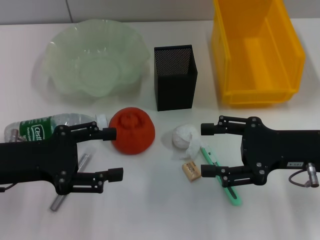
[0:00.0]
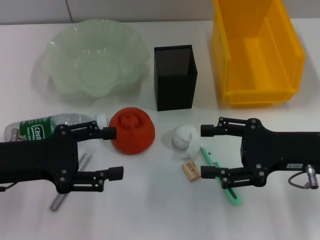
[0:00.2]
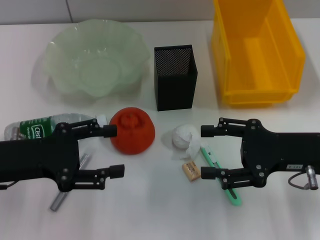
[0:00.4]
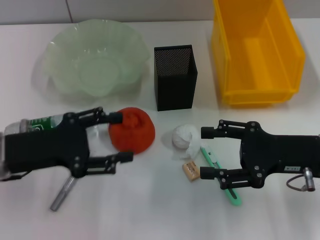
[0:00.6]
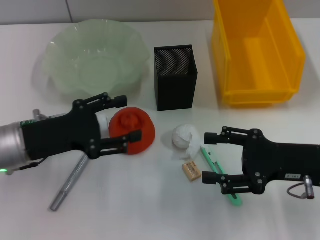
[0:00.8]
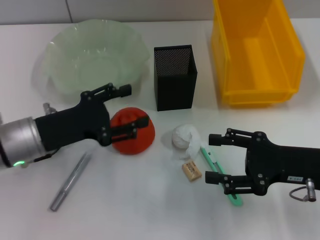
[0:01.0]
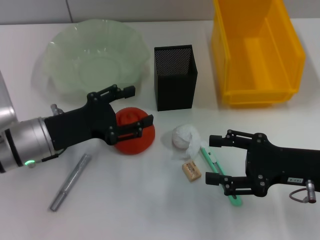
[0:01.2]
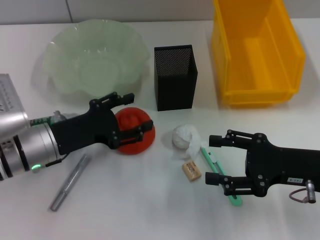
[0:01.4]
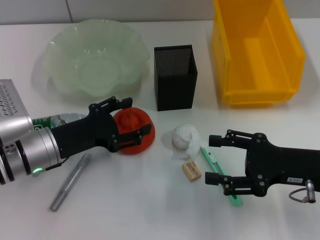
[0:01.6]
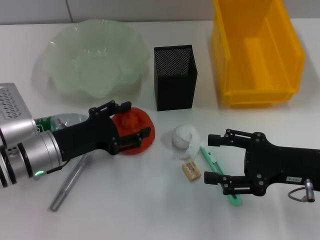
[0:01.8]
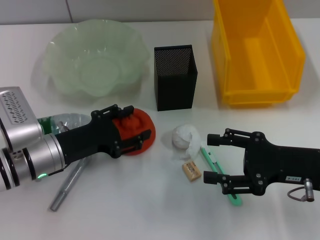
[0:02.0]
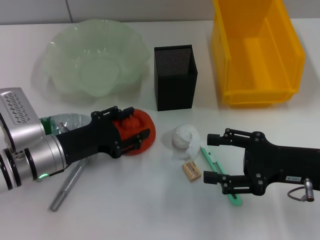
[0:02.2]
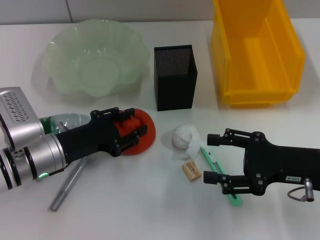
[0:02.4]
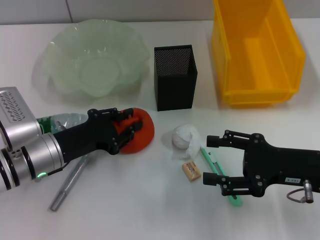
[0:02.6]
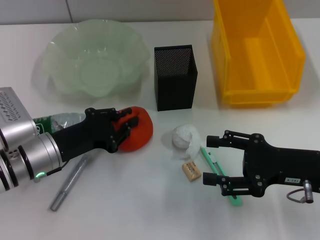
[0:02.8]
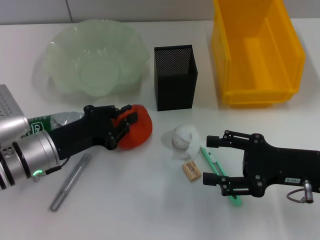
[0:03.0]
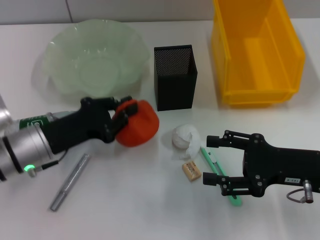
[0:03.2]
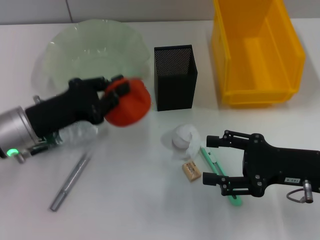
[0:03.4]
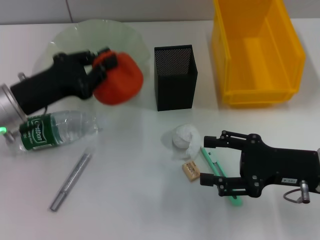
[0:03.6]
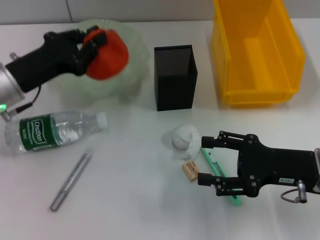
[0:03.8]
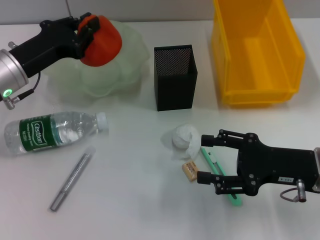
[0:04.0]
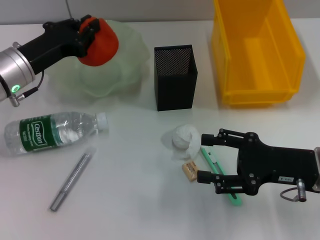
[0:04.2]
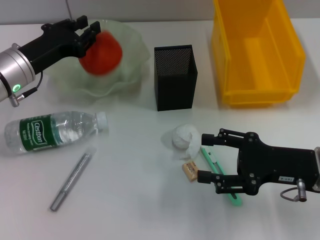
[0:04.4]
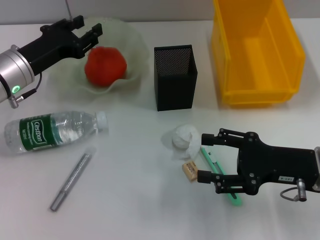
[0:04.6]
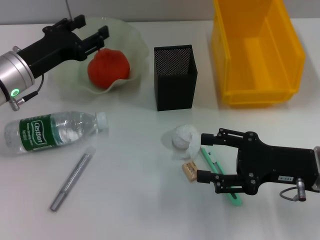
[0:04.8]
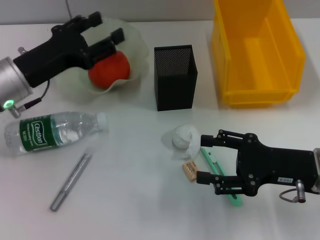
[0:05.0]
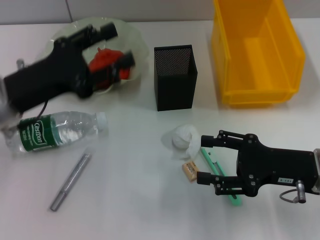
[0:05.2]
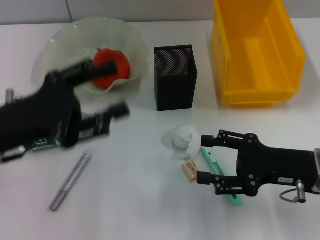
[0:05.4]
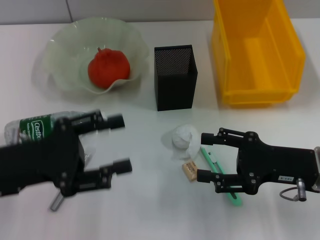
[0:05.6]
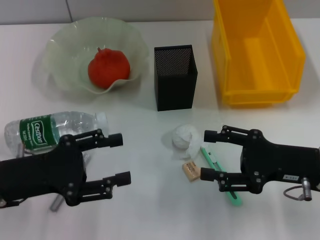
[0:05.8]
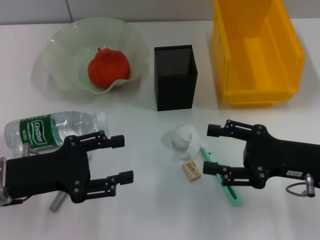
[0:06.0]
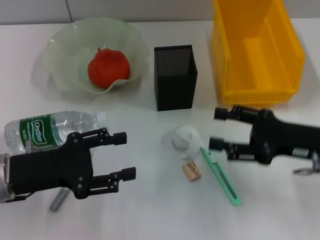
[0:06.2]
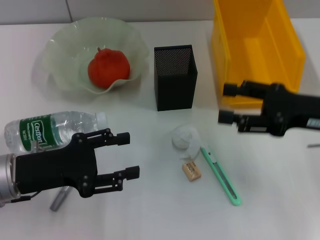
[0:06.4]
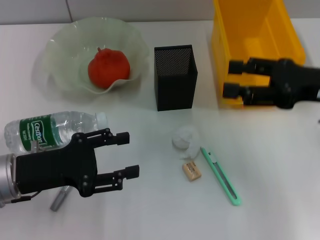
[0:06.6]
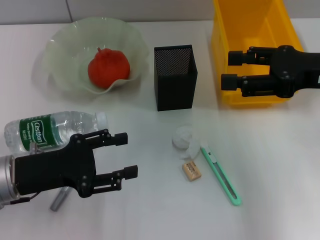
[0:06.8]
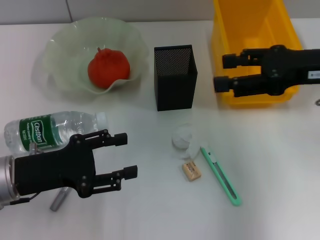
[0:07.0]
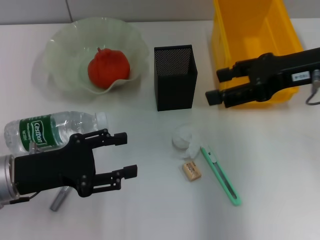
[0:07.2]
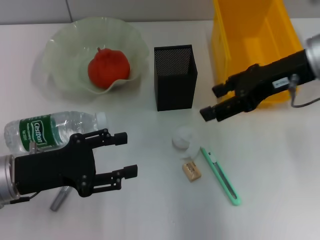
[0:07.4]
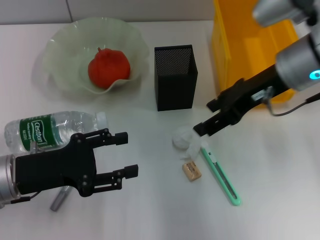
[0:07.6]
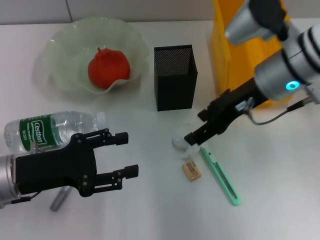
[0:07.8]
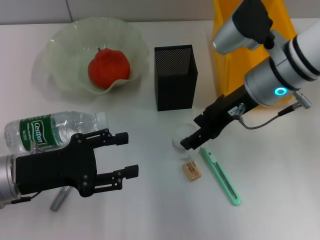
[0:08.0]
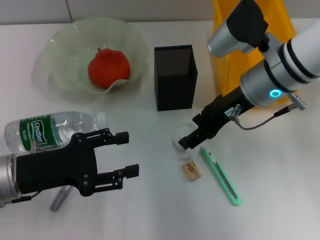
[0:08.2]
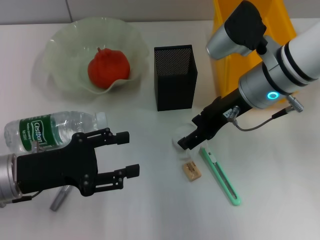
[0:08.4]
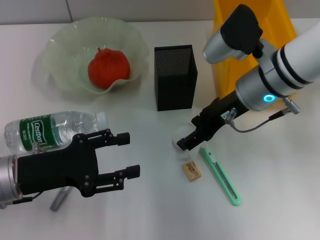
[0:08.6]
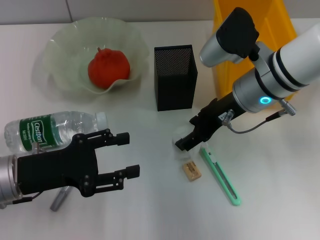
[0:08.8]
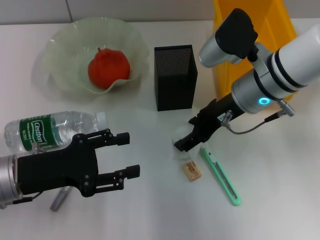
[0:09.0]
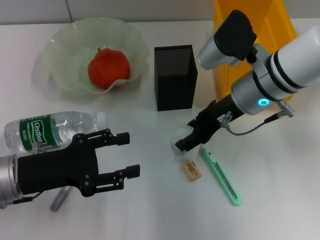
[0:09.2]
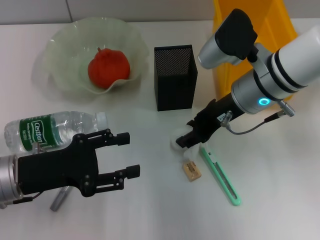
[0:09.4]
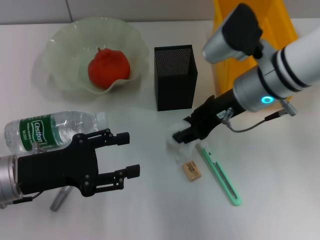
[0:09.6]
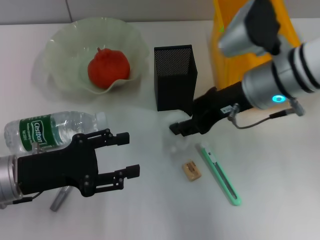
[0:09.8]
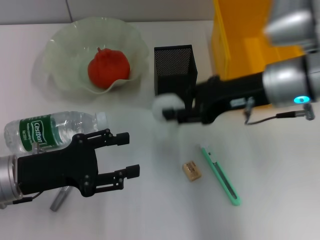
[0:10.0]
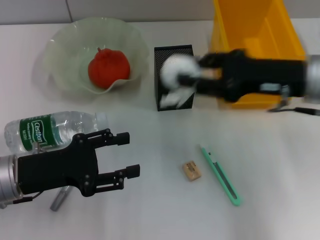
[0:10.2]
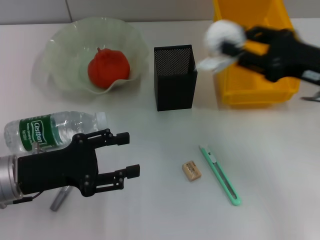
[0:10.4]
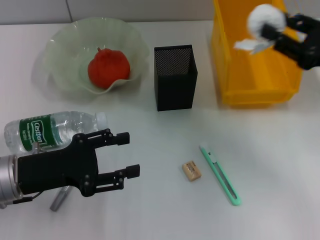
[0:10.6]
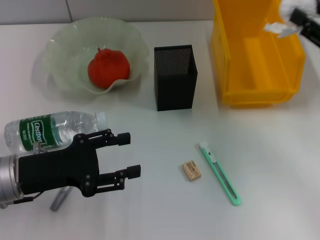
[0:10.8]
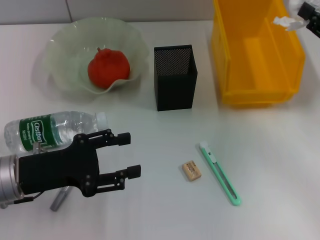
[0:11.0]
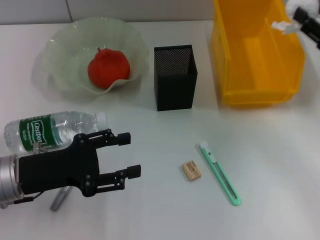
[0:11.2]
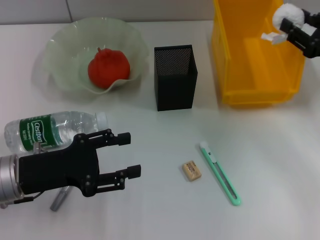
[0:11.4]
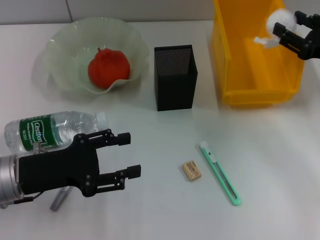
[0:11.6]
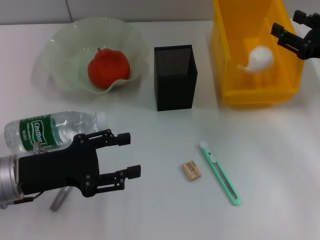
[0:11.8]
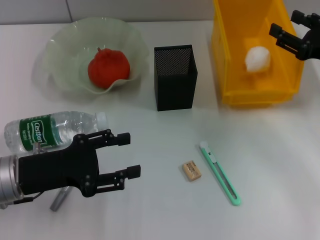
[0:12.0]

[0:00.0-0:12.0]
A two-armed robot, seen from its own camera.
Step, 0:00.0 to 0:02.6: Grab the orange with the left hand.
Step, 0:02.8 to 0:04.8: Place the orange into the fruit bowl with the left hand.
Step, 0:05.0 to 0:09.2: Grab the paper ball with the right hand.
Step, 0:09.4 to 0:12.0: Place the paper ball into the trash can with the right hand.
0:00.0 to 0:01.6: The left gripper goes approximately 10 cm downward and to the right.
0:01.6 to 0:03.0: The left gripper closes its fingers.
0:03.0 to 0:04.4: The left gripper moves forward and upward, roughly 10 cm.
0:04.4 to 0:06.0: The left gripper travels backward by roughly 15 cm, and opens its fingers.
0:06.0 to 0:07.6: The right gripper heads upward, forward and to the left, covering about 15 cm.
0:07.6 to 0:09.0: The right gripper goes about 5 cm downward.
0:09.0 to 0:10.4: The right gripper goes about 15 cm to the right and backward, and closes its fingers.
0:10.4 to 0:12.0: The right gripper goes about 5 cm to the right.

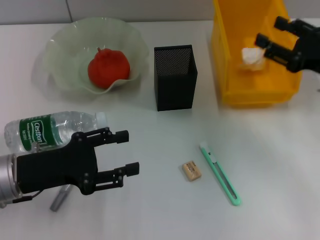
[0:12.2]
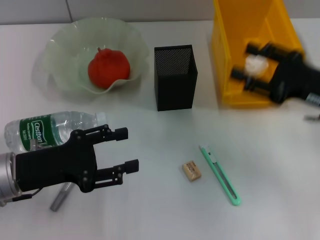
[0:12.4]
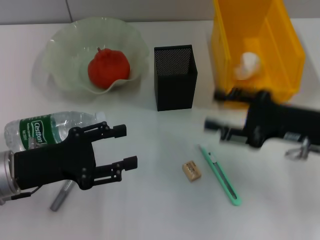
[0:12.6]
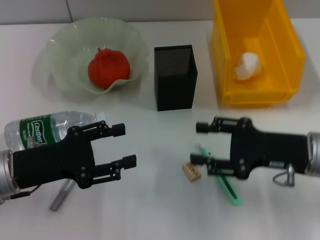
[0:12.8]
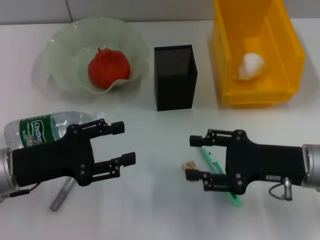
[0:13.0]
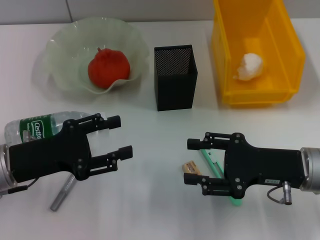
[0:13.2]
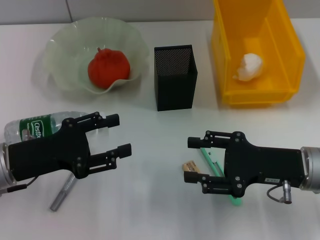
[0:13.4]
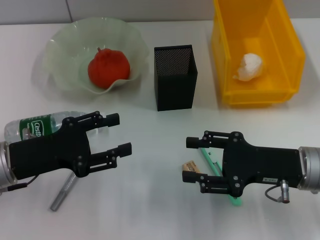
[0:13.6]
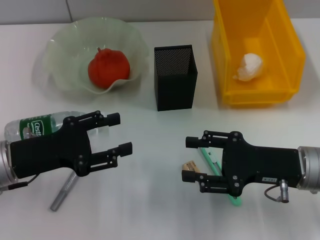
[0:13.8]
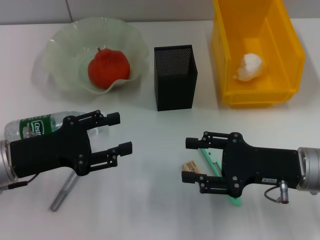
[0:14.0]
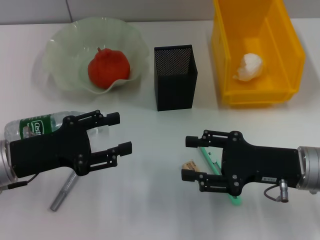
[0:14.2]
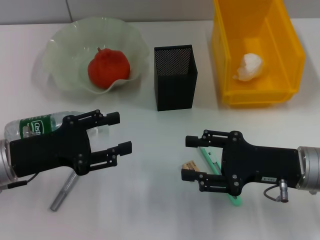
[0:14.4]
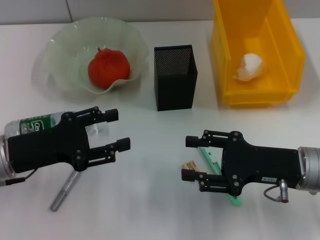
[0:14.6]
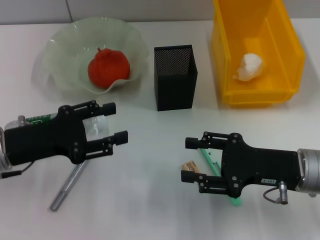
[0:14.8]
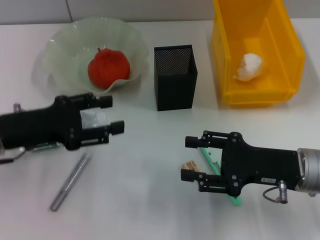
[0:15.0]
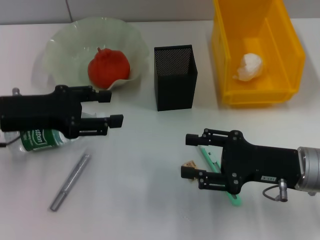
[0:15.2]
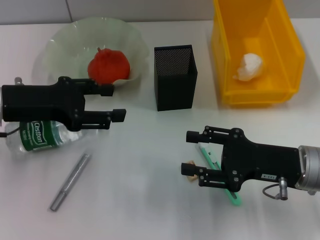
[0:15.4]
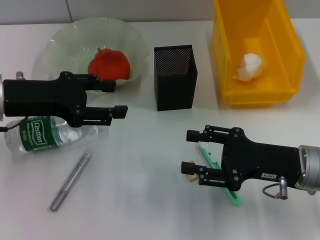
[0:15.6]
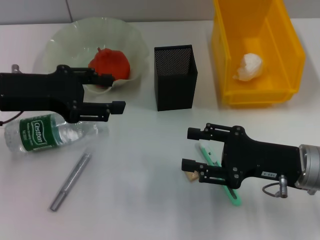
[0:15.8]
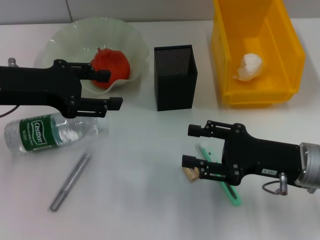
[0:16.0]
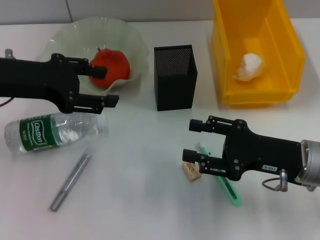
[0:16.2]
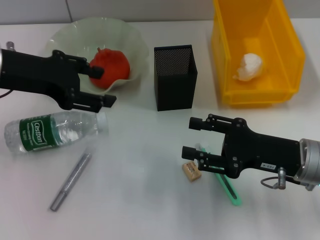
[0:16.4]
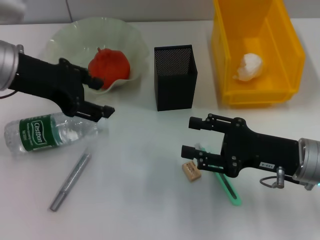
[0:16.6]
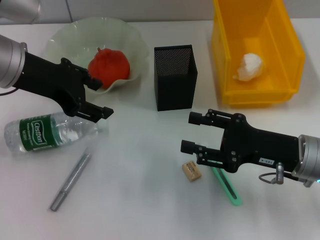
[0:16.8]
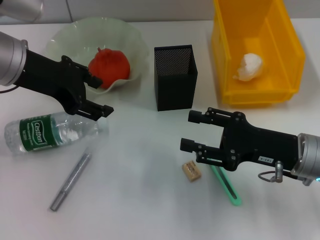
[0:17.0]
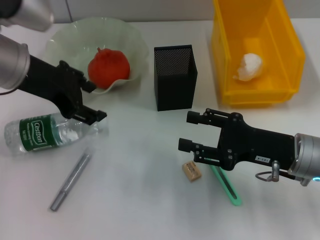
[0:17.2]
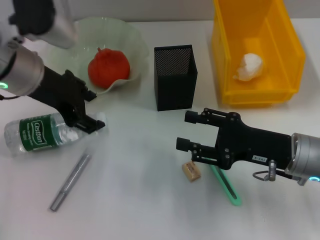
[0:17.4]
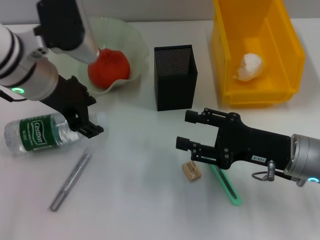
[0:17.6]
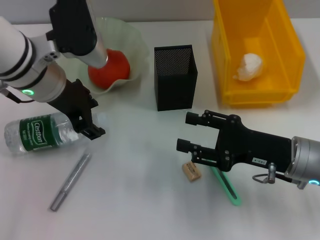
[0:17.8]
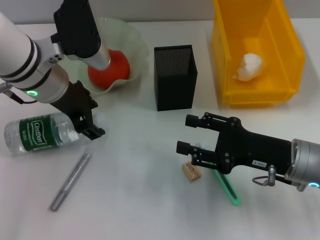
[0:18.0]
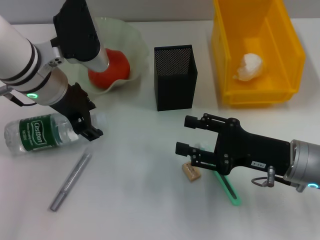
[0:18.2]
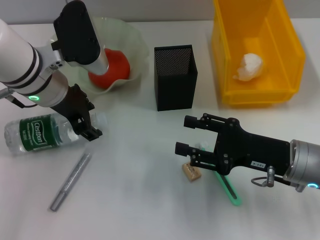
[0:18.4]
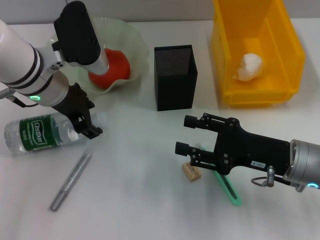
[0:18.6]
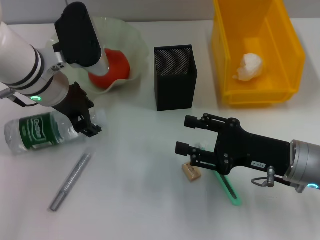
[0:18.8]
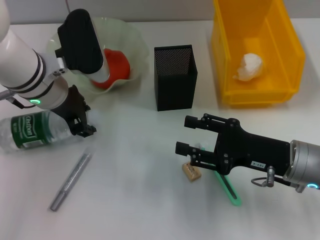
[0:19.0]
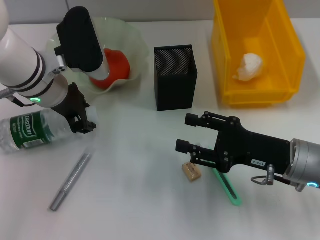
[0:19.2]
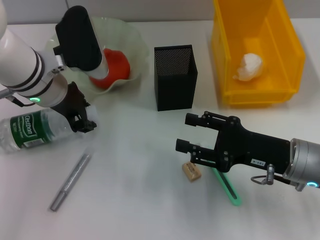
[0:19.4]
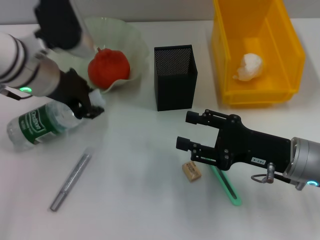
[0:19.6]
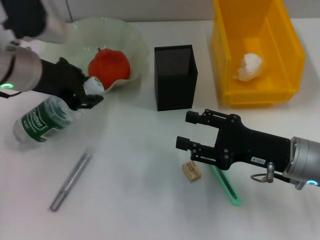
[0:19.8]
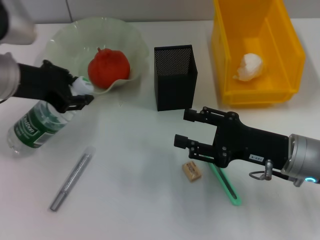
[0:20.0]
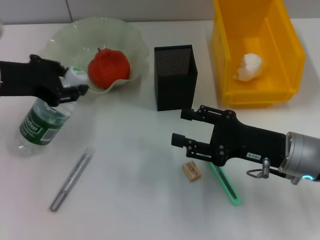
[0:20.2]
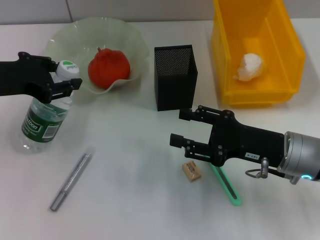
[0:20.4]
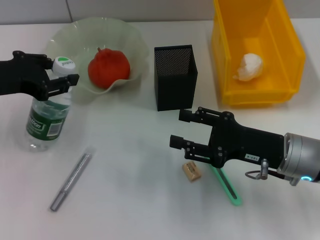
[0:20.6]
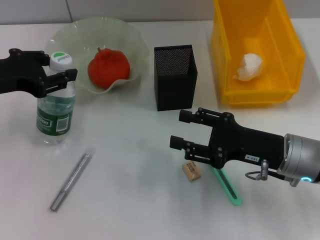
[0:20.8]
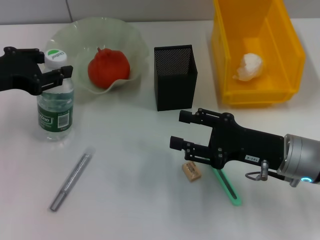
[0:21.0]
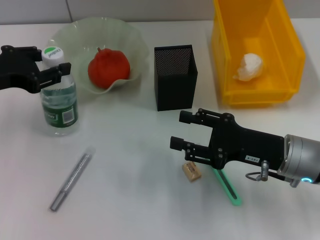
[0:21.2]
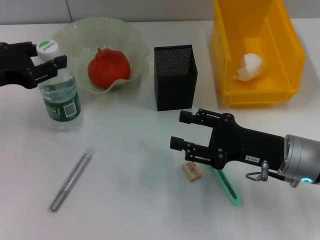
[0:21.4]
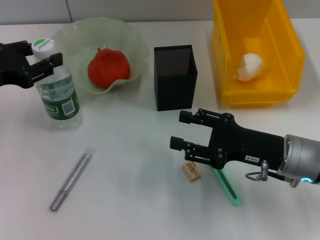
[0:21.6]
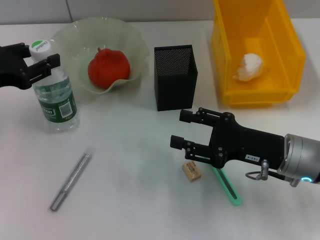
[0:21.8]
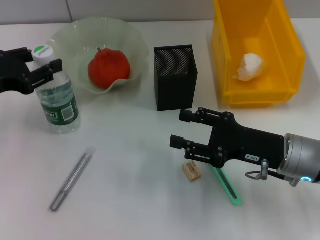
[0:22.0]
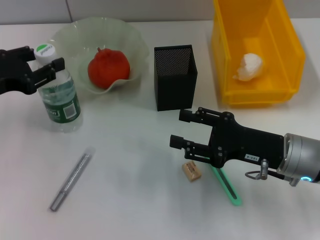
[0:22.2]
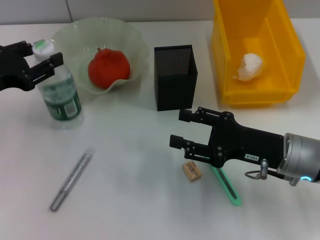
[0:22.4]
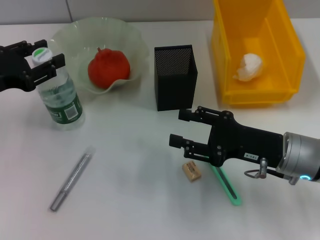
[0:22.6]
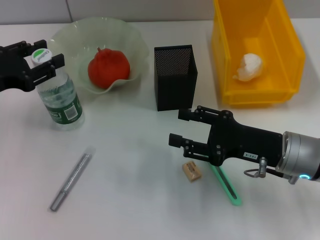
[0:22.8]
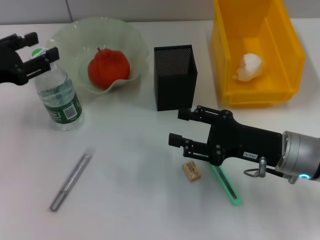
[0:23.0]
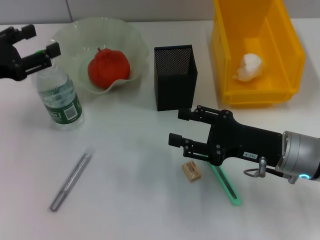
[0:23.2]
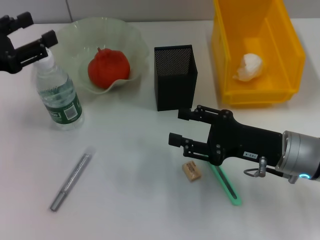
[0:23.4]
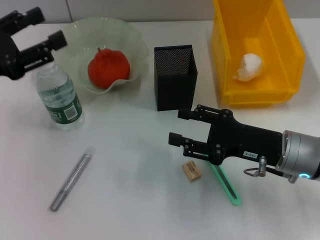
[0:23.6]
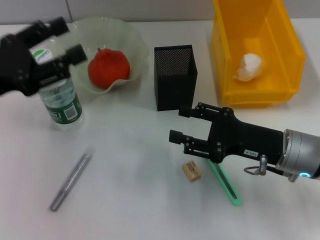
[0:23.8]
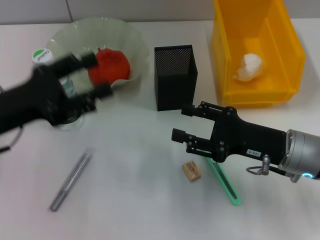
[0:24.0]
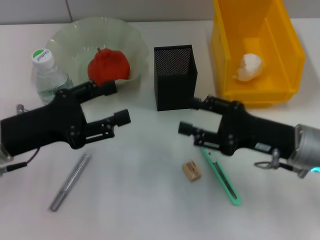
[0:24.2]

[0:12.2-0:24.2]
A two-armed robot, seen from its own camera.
Step, 0:12.2 to 0:19.0: Grab the water bottle with the left hand.
Step, 0:19.2 to 0:23.0: Place the water bottle on the table with the left hand.
0:12.2 to 0:13.8: The right gripper moves to the left, backward and downward, some 10 cm.
0:13.8 to 0:15.2: The left gripper moves upward, some 5 cm.
0:15.2 to 0:16.6: The left gripper is displaced upward by approximately 5 cm.
0:16.6 to 0:18.2: The left gripper goes about 10 cm to the right and downward.
0:18.2 to 0:19.8: The left gripper closes.
0:19.8 to 0:21.2: The left gripper goes roughly 10 cm to the left.
0:21.2 to 0:22.6: The grippers stay close to where they were, moving slightly.
0:22.6 to 0:24.2: The left gripper goes roughly 5 cm to the right, and opens up.
